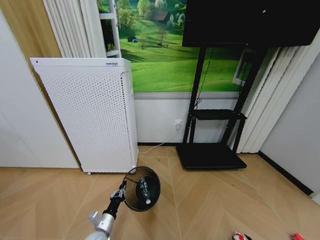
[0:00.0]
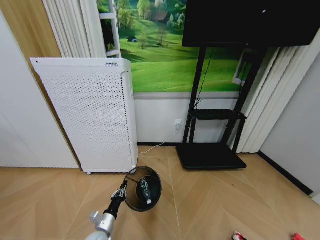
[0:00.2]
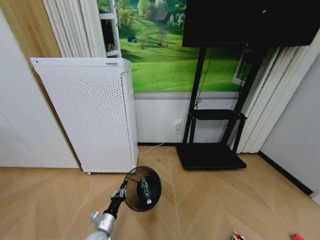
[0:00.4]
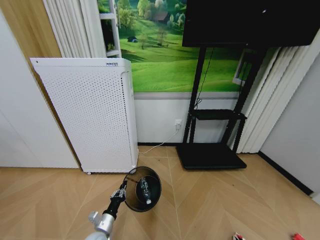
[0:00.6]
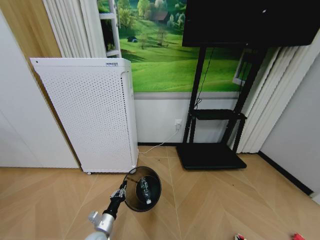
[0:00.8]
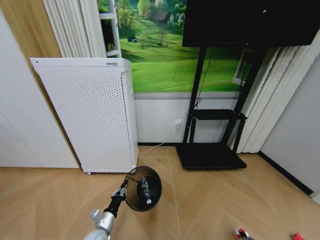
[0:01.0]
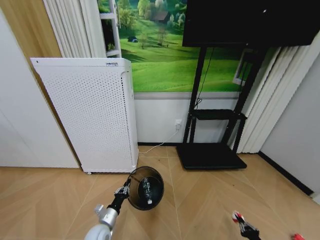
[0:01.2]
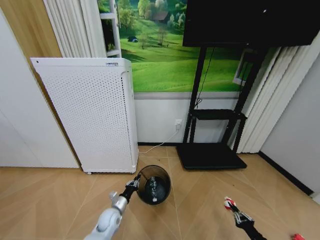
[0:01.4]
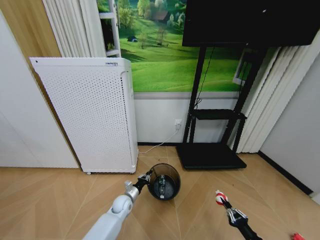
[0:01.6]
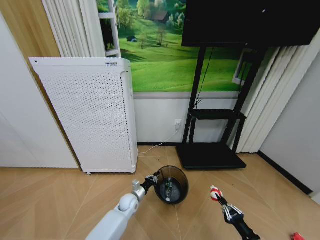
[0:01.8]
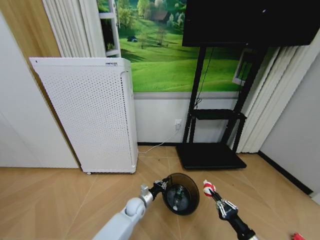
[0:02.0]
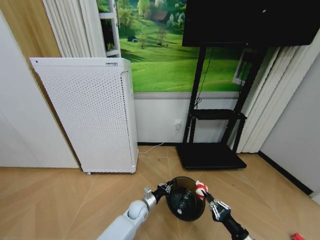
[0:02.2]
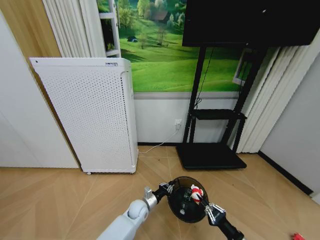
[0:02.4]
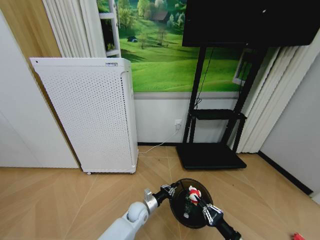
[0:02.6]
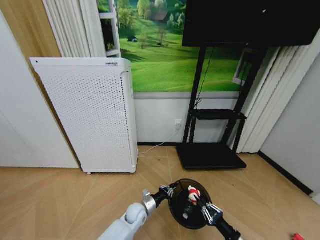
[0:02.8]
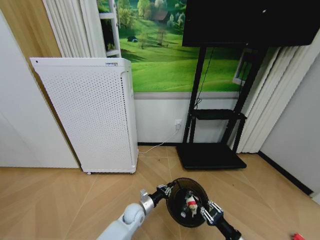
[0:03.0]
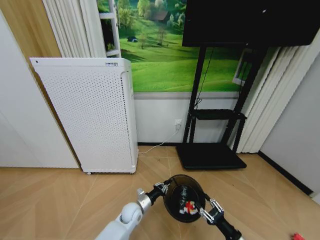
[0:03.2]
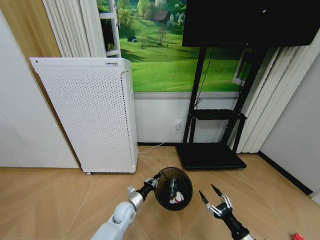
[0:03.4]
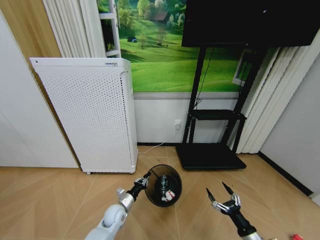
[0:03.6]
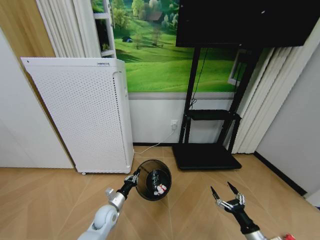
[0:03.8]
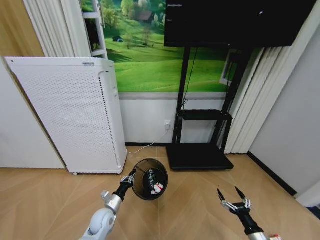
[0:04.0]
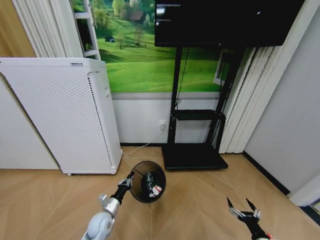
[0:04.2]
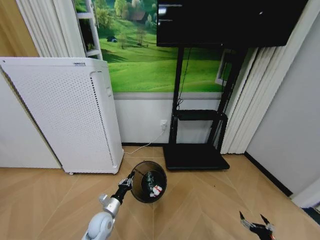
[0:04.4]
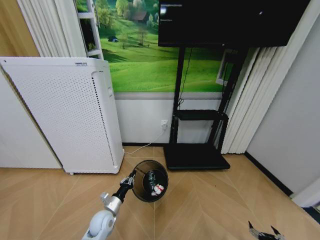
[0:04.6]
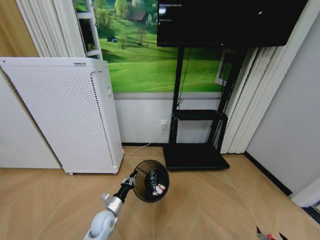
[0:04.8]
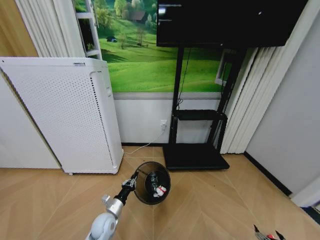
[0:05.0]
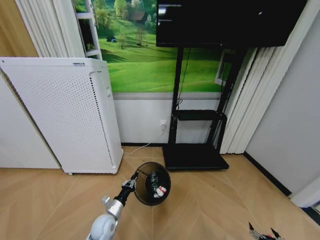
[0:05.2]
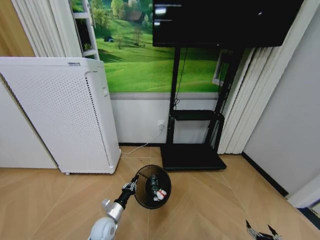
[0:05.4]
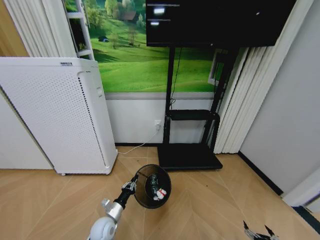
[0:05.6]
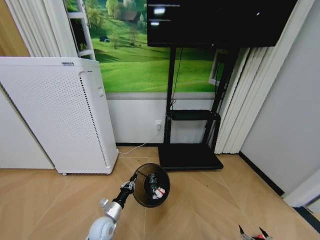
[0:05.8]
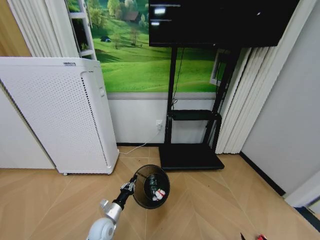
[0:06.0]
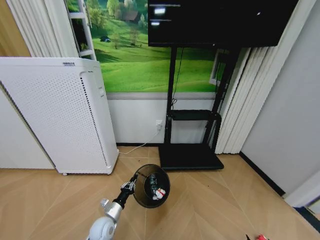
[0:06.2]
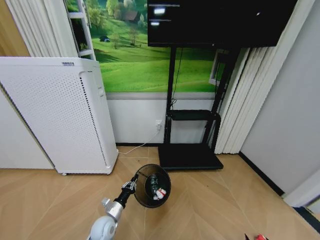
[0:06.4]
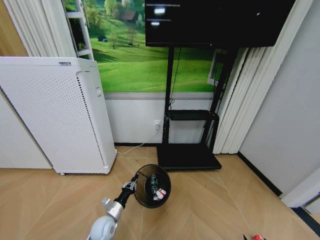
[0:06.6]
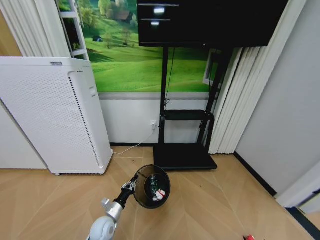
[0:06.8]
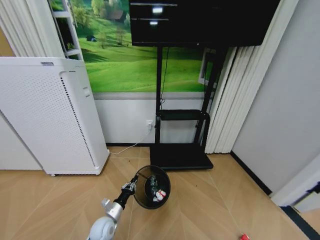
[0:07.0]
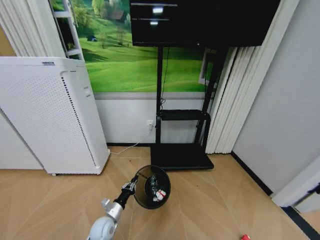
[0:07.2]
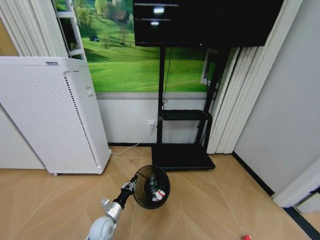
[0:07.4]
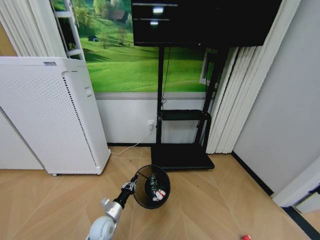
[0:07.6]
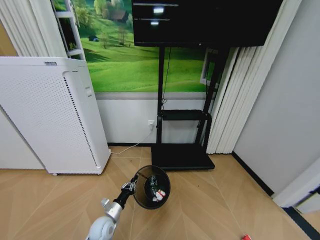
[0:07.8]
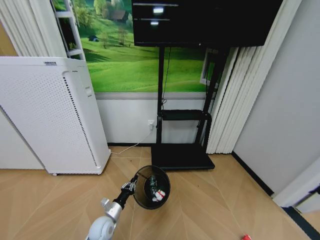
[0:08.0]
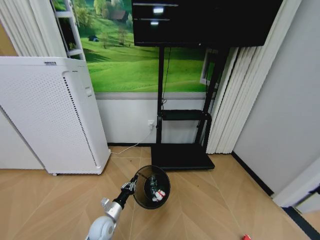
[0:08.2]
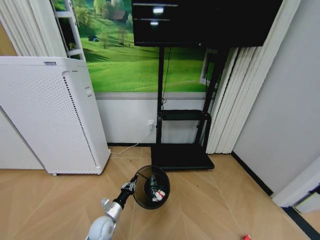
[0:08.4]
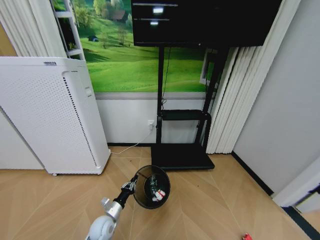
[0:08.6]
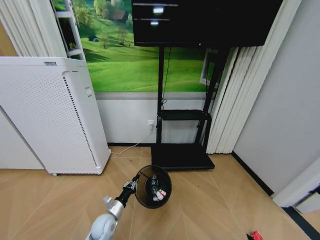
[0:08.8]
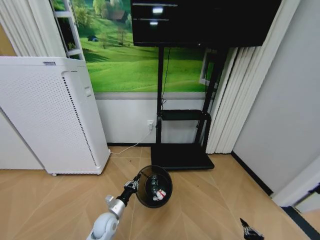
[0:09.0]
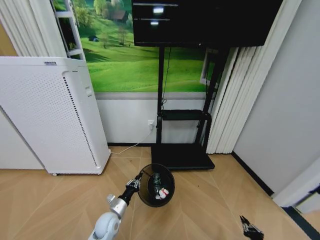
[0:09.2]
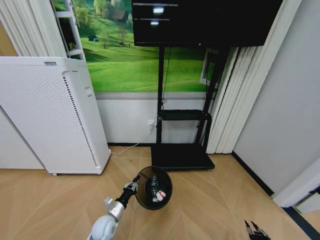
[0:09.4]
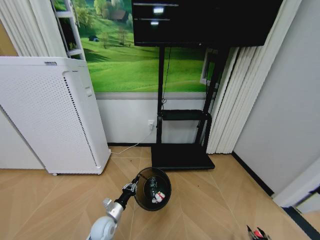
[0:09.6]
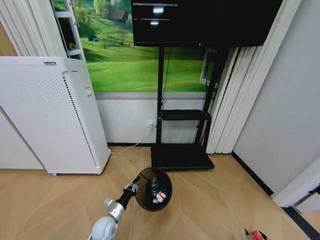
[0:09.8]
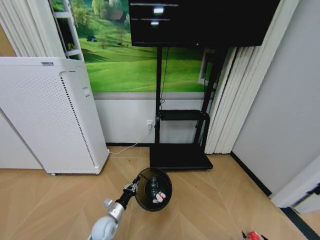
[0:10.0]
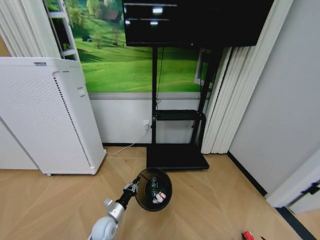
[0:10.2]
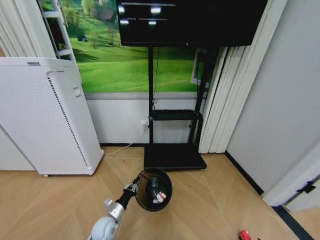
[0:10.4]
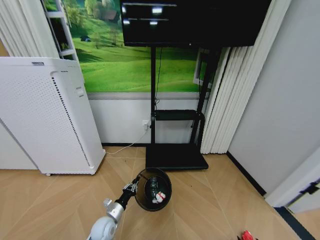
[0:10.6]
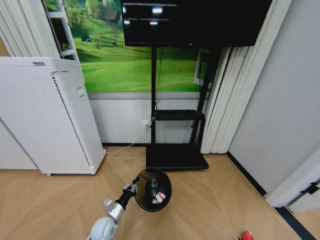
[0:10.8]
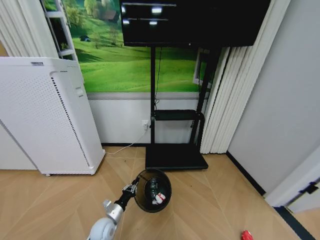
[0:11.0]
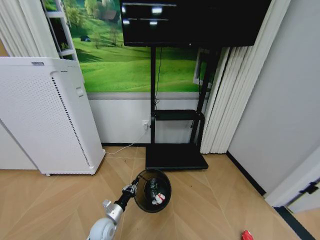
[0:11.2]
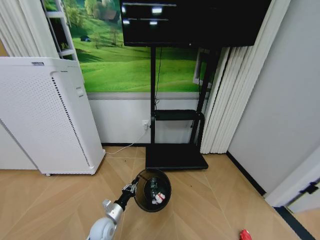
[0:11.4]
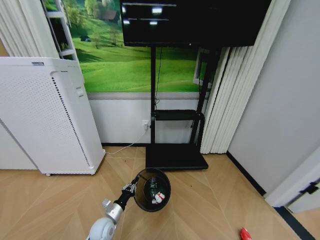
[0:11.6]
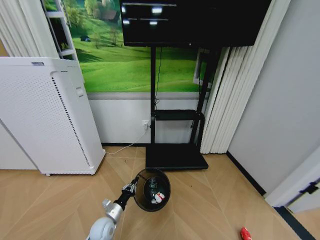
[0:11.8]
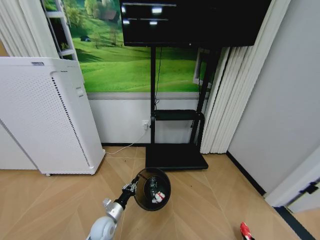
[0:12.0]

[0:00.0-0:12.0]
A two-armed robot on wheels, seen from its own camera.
Task of the whole recording: Pick up the trash bin and place the garbage on the floor into it.
0:00.0 to 0:01.6: The left gripper shifts about 15 cm forward and to the right. The right gripper heads upward and to the left, covering roughly 15 cm, and closes.
0:01.6 to 0:03.0: The left gripper goes approximately 5 cm to the right. The right gripper shifts about 10 cm to the left.
0:03.0 to 0:04.4: The right gripper shifts roughly 15 cm to the right and downward, and opens up. Meanwhile the left gripper travels to the left by approximately 15 cm.
0:04.4 to 0:06.0: The right gripper heads downward, covering some 5 cm.
0:07.6 to 0:09.0: The right gripper shifts about 5 cm upward, and closes.
0:09.0 to 0:10.4: The right gripper heads downward, covering about 5 cm, and opens its fingers.
0:10.4 to 0:12.0: The right gripper closes.

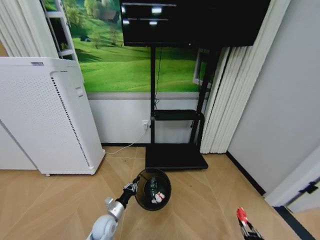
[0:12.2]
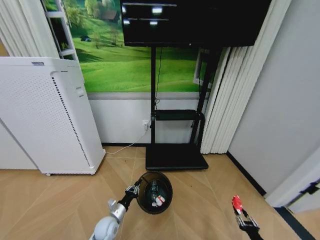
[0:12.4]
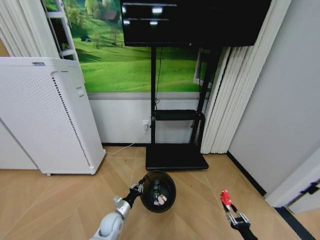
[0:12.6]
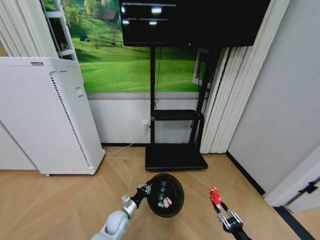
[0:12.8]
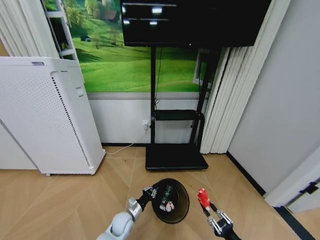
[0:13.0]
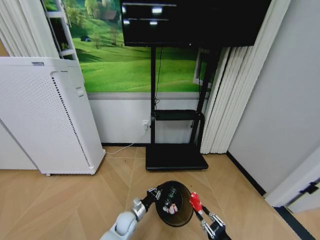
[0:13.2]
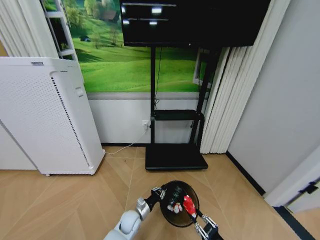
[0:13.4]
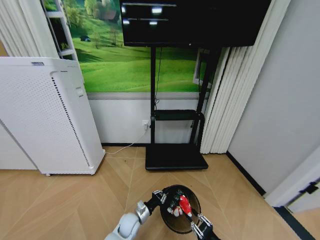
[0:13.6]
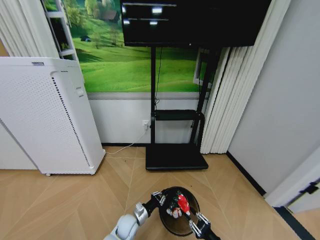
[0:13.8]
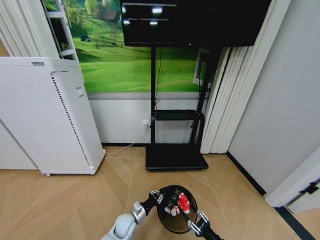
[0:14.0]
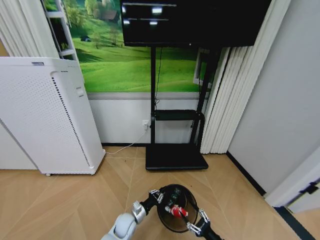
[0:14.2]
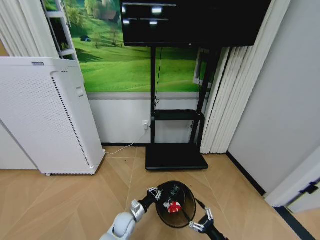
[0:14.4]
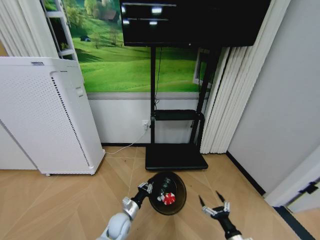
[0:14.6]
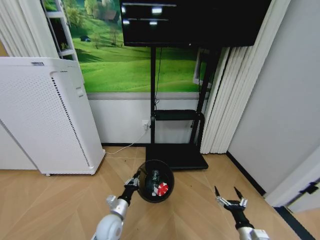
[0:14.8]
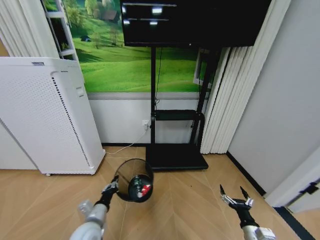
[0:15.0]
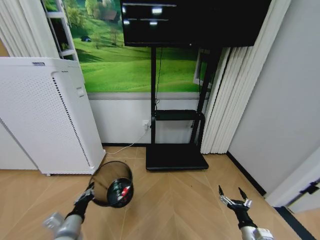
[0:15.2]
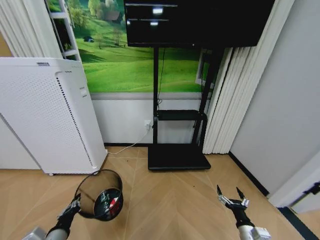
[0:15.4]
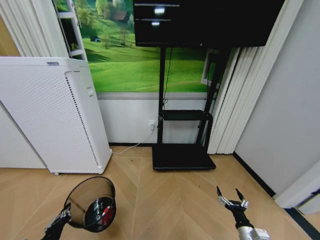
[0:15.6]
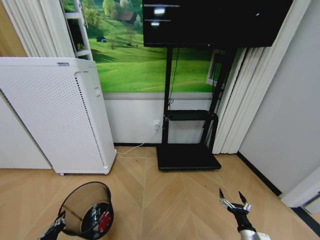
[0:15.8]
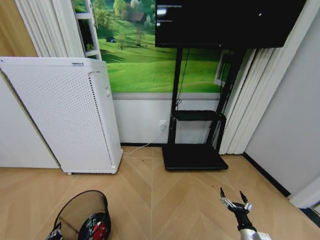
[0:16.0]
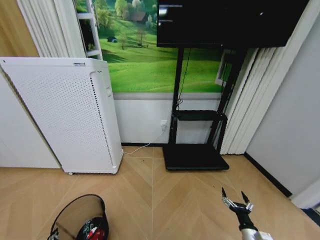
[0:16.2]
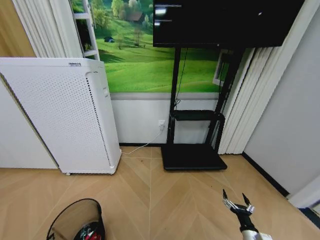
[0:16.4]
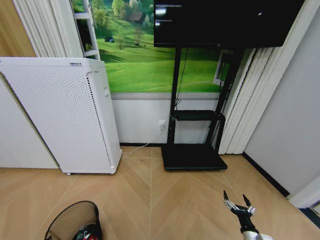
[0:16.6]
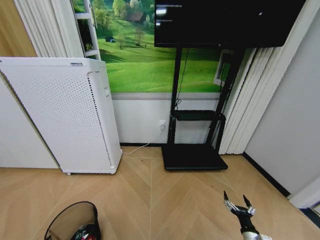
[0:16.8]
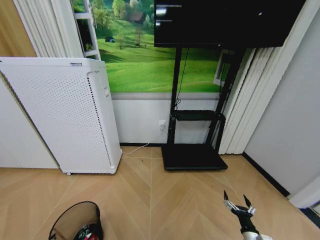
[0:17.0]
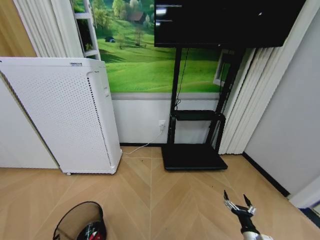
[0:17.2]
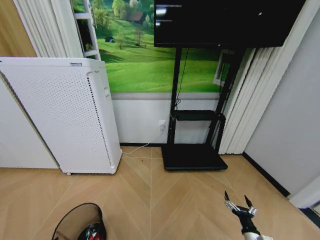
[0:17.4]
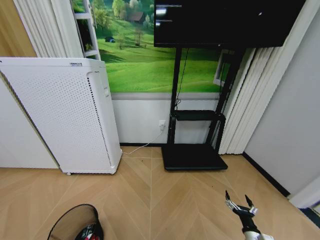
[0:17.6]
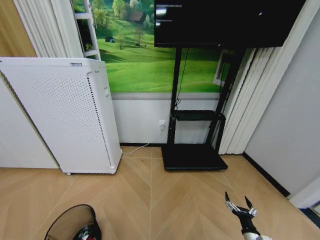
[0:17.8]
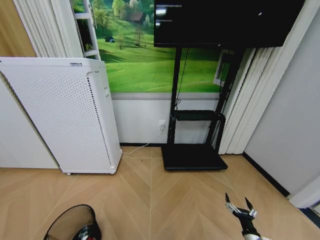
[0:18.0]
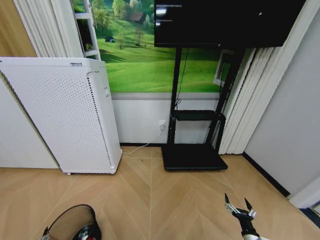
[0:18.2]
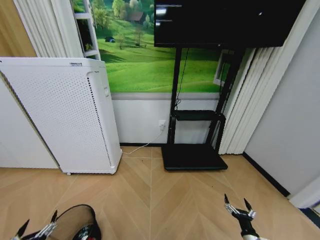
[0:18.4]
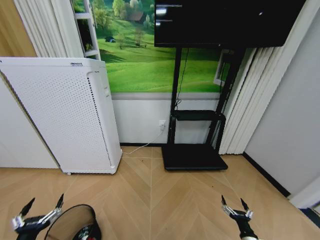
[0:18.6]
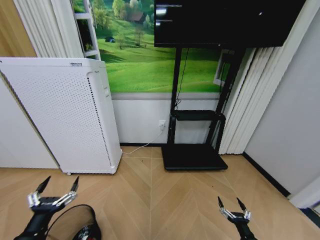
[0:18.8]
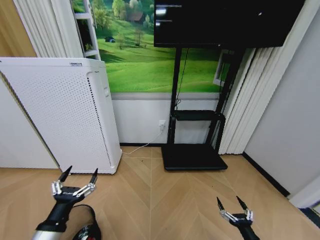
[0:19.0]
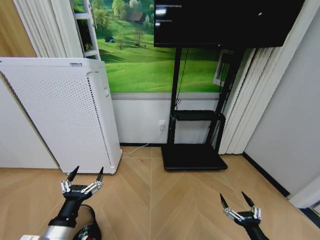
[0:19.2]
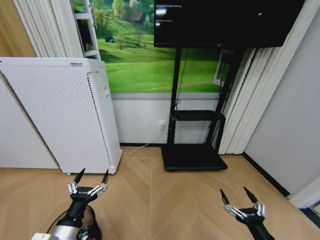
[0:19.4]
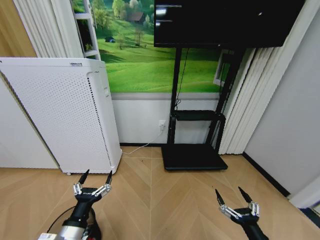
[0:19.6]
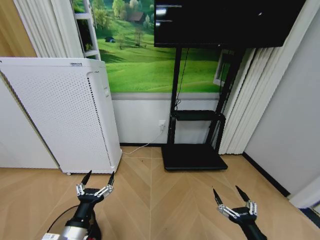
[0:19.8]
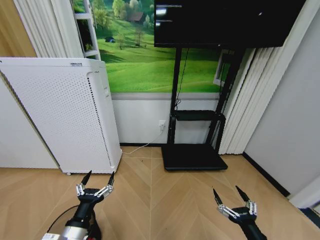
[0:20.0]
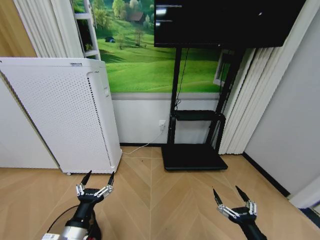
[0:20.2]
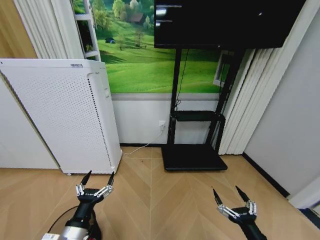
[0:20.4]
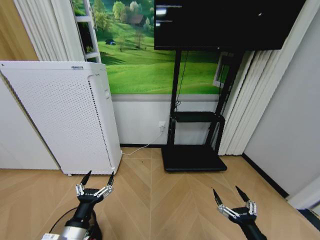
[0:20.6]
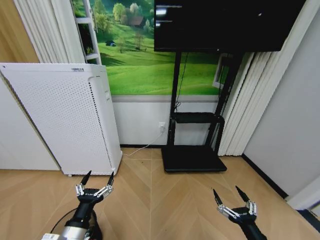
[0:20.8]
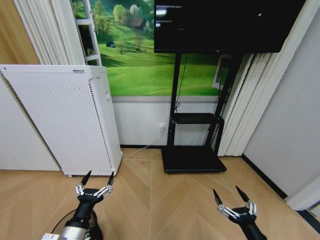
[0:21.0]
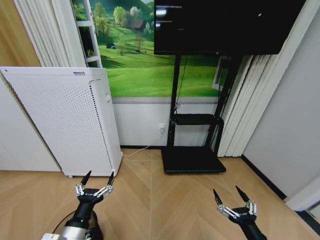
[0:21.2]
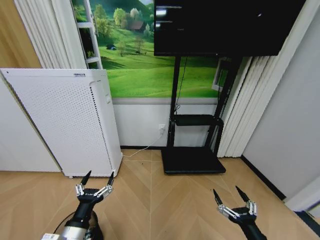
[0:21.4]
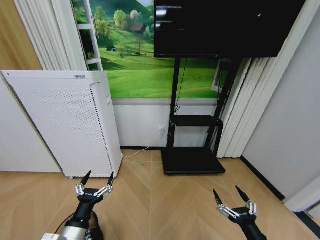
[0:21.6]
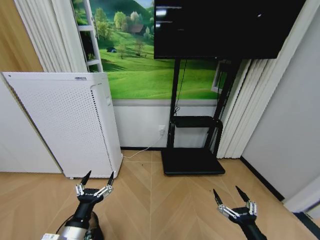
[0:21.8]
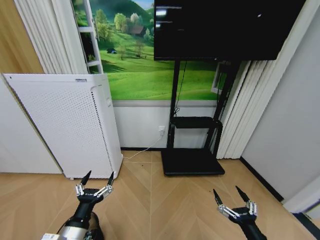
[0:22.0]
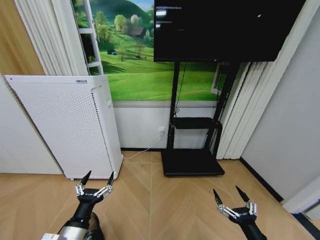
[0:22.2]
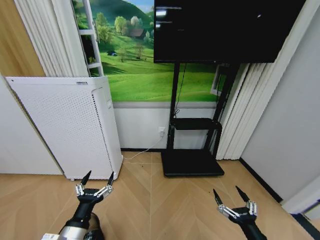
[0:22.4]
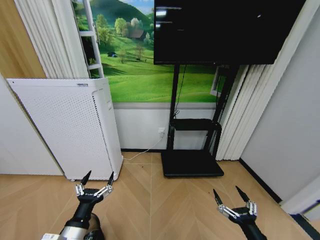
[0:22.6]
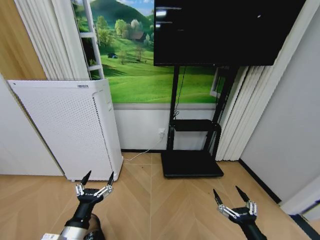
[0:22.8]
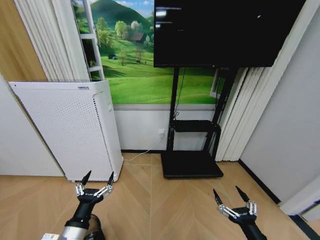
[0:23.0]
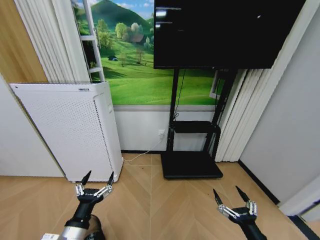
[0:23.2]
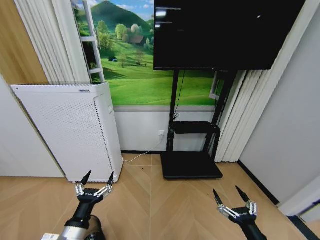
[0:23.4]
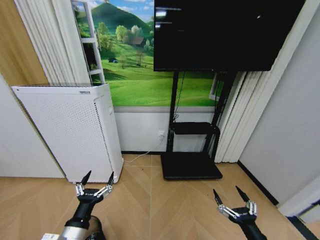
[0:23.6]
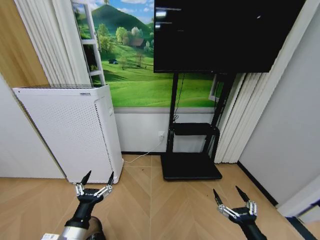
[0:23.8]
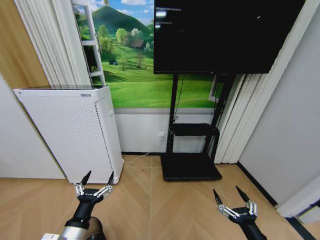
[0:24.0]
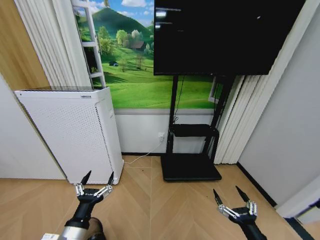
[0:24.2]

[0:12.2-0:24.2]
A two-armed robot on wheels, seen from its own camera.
Task of the whole recording: Pick up the trash bin and place the garbage on the floor into it.
0:12.2 to 0:13.8: The right gripper goes approximately 25 cm to the left and upward. Meanwhile the left gripper heads to the right, covering approximately 10 cm.
0:13.8 to 0:15.2: The right gripper goes approximately 5 cm to the right, and opens its fingers; the left gripper is displaced upward, to the left and backward by some 25 cm.
0:15.2 to 0:16.6: The left gripper moves backward, to the left and downward, about 15 cm; the right gripper moves downward, about 5 cm.
0:16.6 to 0:18.2: The left gripper shifts by some 5 cm, and opens.
0:18.2 to 0:19.8: The left gripper heads to the right, upward and forward, covering about 25 cm. The right gripper shifts roughly 20 cm upward and to the left.
0:19.8 to 0:24.2: Both grippers stay put.
